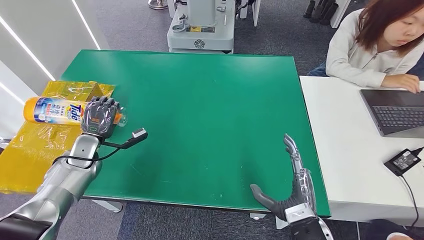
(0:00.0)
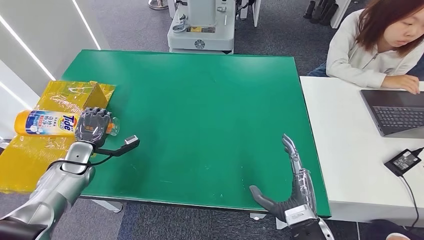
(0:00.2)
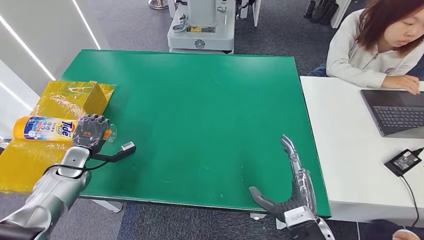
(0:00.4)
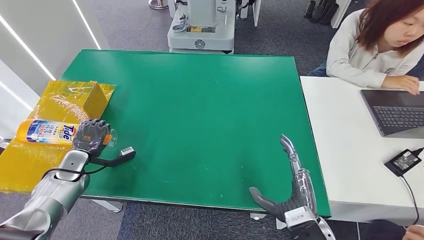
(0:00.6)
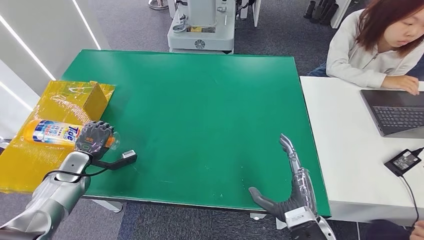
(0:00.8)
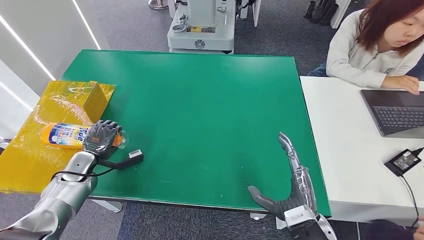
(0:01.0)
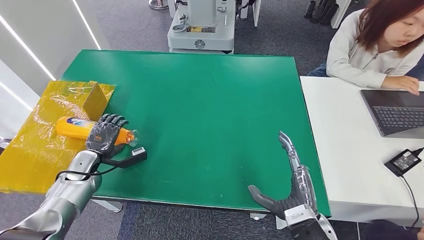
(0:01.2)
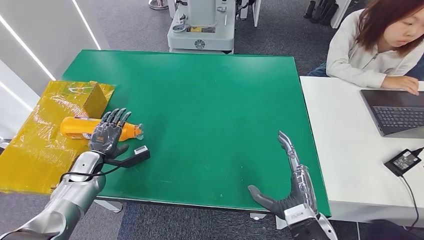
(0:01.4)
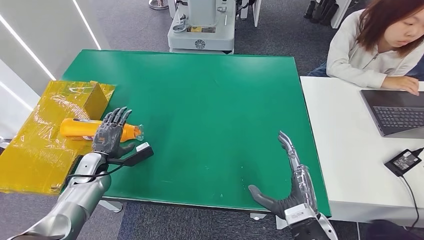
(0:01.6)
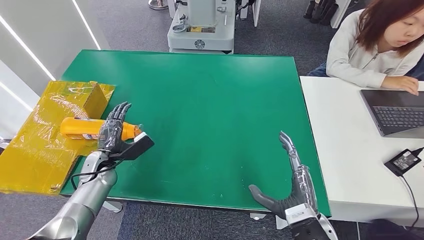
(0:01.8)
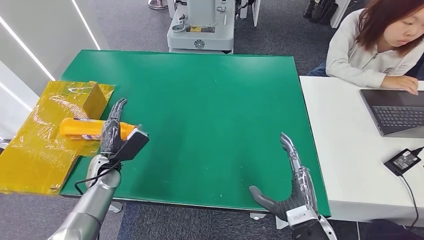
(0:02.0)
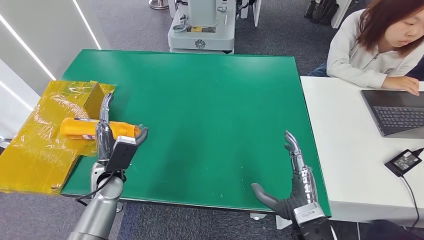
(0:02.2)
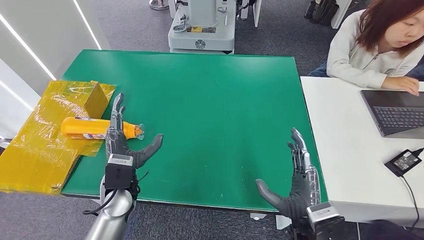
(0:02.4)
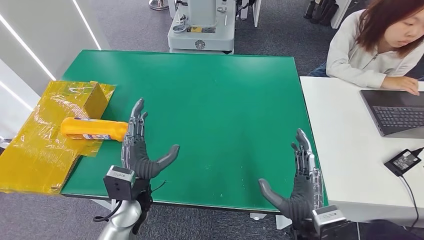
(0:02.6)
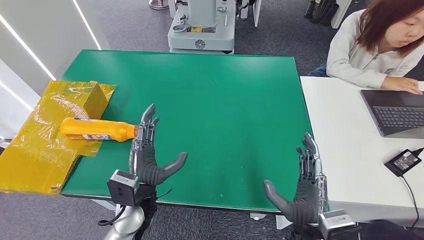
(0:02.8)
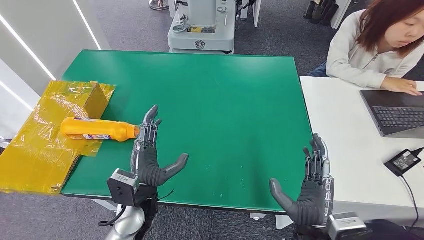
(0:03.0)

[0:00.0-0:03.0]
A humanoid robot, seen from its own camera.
Step, 0:00.0 to 0:03.0: Turn the bottle to the front side.
0:00.0 to 0:01.6: The left hand travels downward by about 5 cm.
0:01.6 to 0:03.0: The left hand heads to the right and backward, covering about 25 cm.
